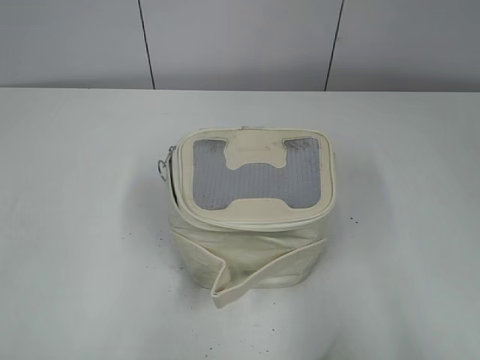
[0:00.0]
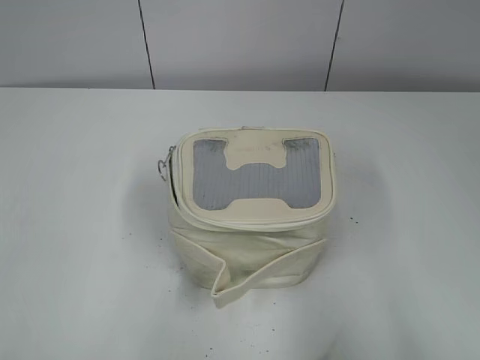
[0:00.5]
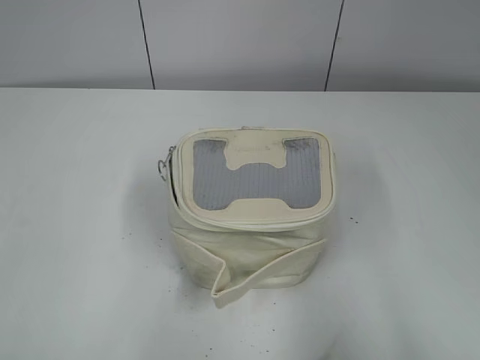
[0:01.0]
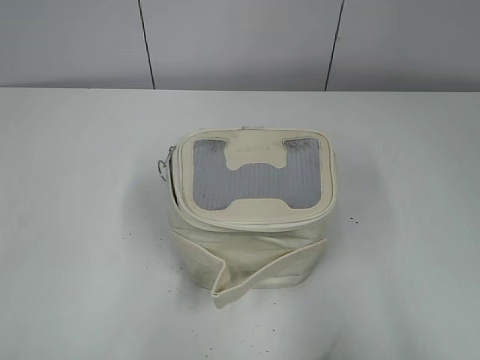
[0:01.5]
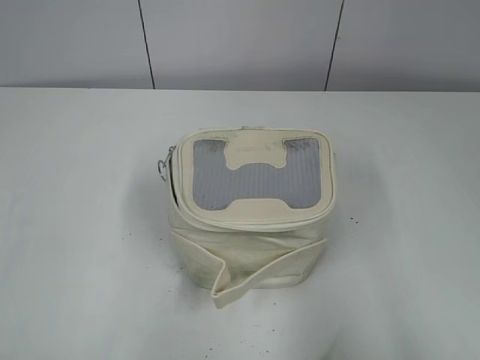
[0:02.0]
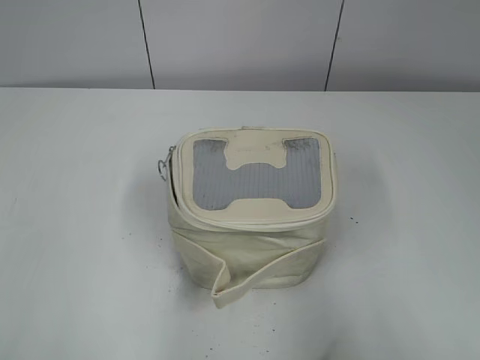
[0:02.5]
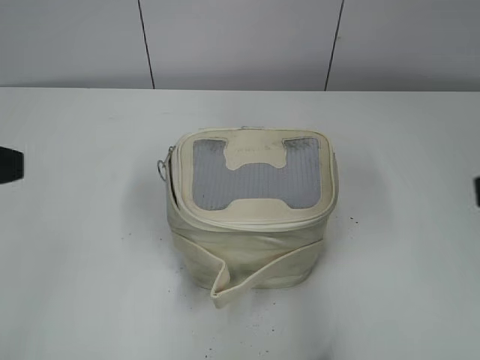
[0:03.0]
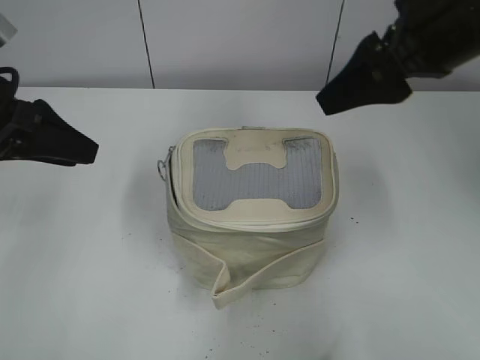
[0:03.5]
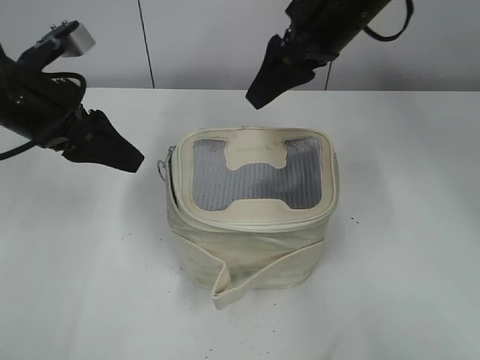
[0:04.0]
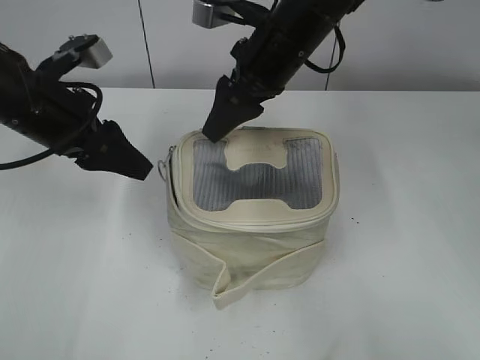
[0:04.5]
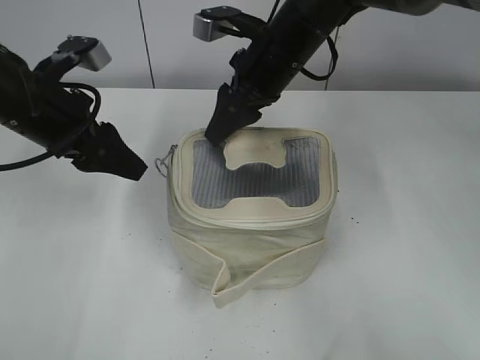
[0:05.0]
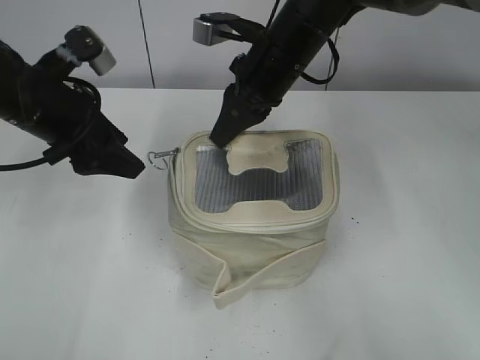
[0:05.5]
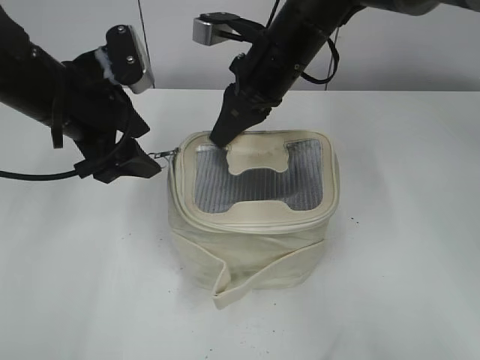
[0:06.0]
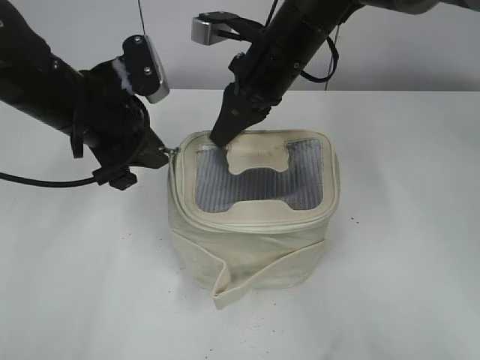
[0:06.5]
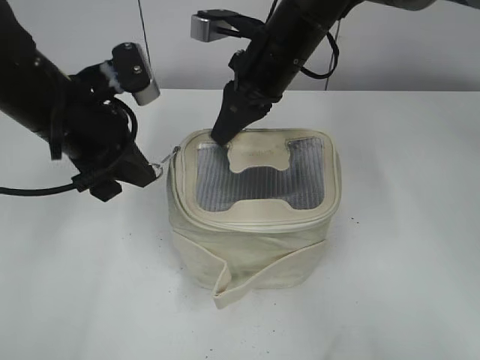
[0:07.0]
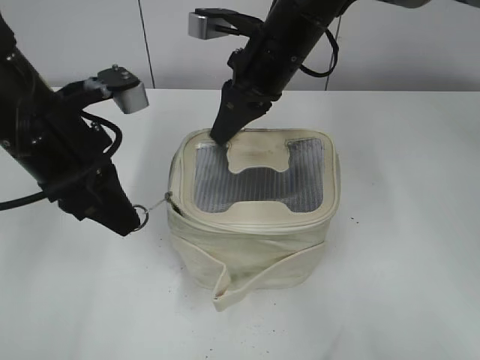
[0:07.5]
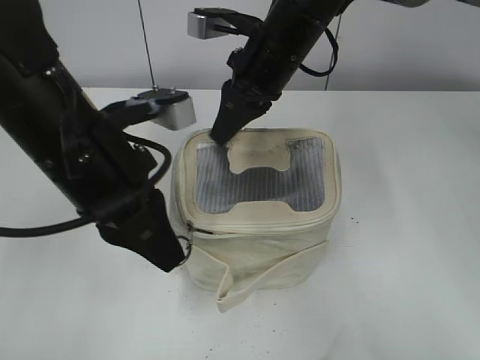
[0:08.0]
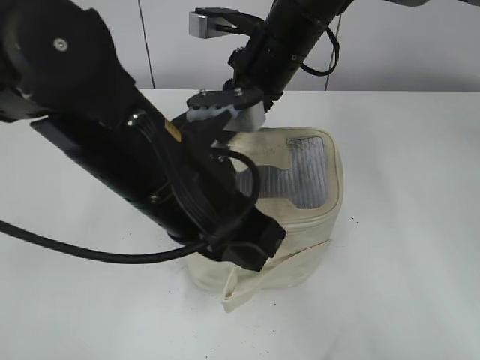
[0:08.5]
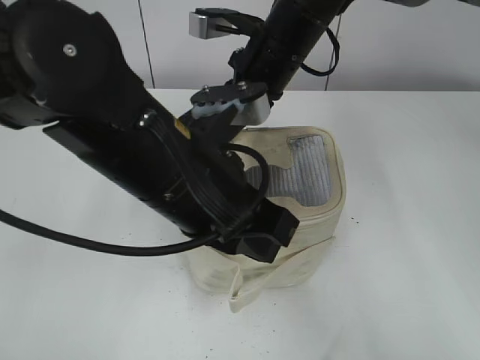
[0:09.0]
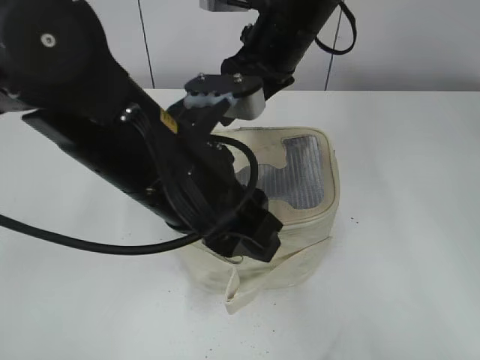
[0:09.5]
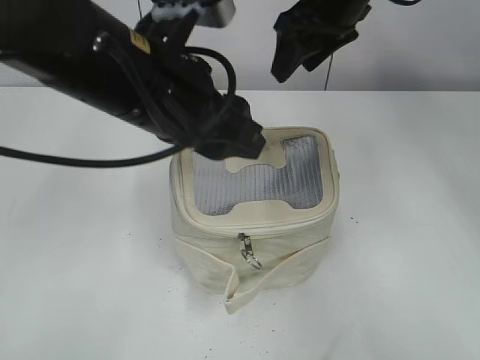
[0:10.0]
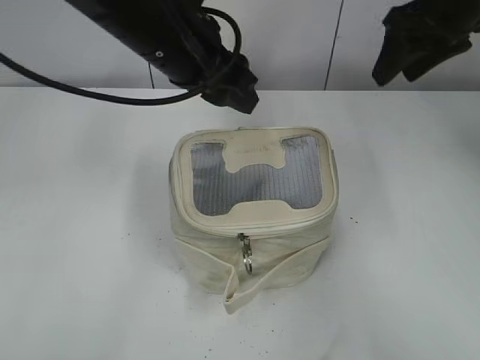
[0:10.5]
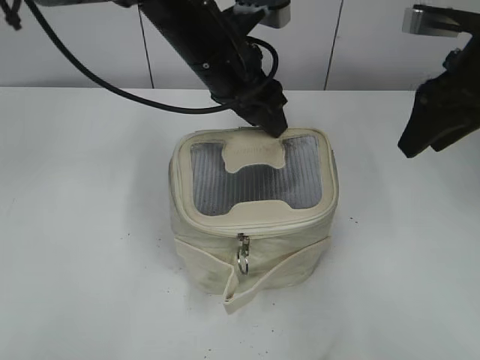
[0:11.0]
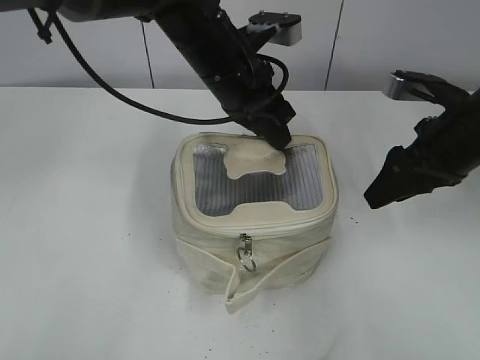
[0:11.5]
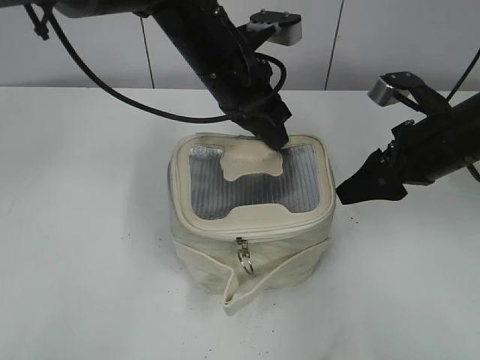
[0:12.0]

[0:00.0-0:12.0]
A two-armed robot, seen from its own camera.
Step, 0:00.0 to 0:09.0: Zip up the bag with your left hand.
0:02.0 to 0:04.0: The left gripper travels forward by roughly 30 cm; the right gripper shifts some 40 cm forward and to the left.
0:04.0 to 0:06.0: The right gripper is displaced downward and to the left by roughly 10 cm, and closes.
0:06.0 to 0:08.0: The left gripper is displaced backward by about 10 cm, and closes its fingers.
0:08.0 to 0:10.0: The right gripper shifts some 10 cm upward and to the right, and opens up. The left gripper goes some 5 cm to the right, and opens its fingers.
0:10.0 to 0:12.0: The left gripper shifts about 15 cm forward and to the right, and closes, while the right gripper moves to the right, downward and backward, approximately 20 cm.

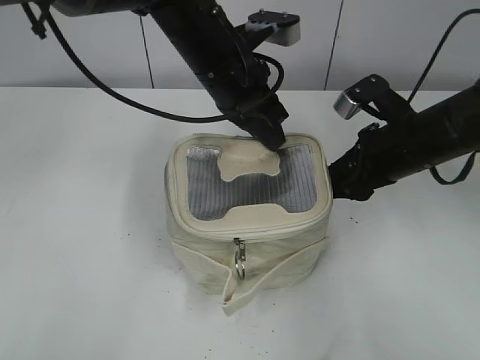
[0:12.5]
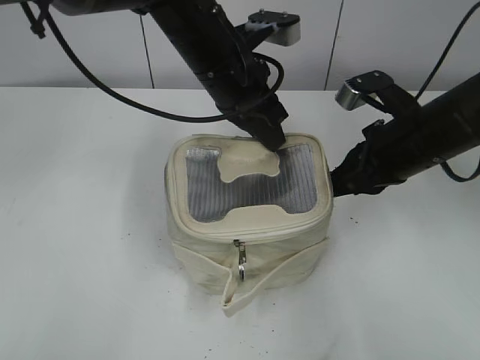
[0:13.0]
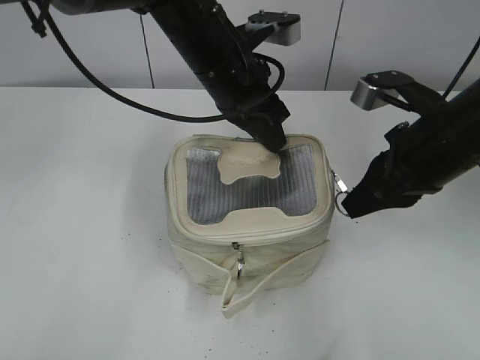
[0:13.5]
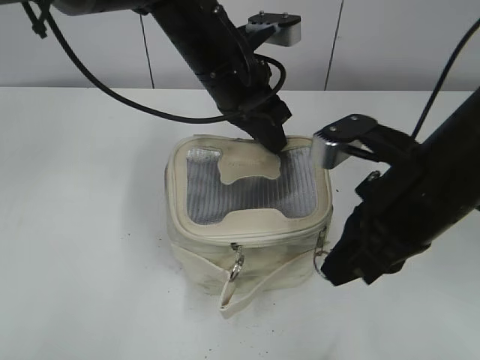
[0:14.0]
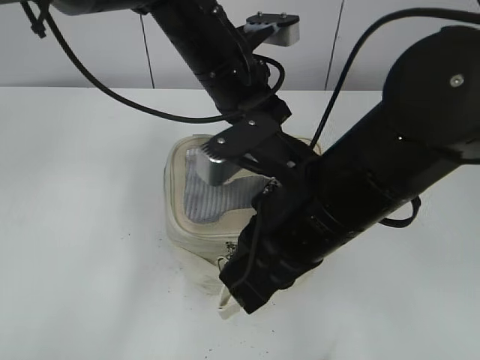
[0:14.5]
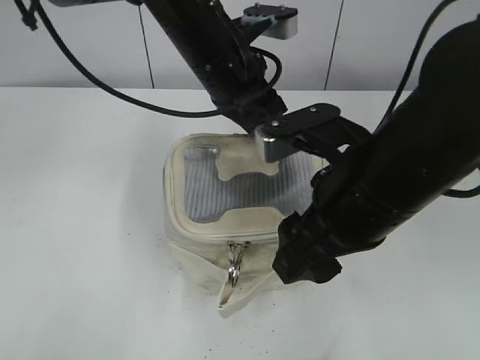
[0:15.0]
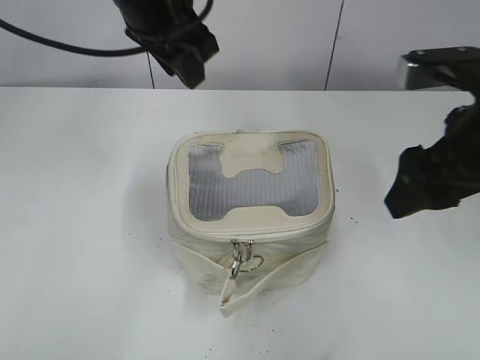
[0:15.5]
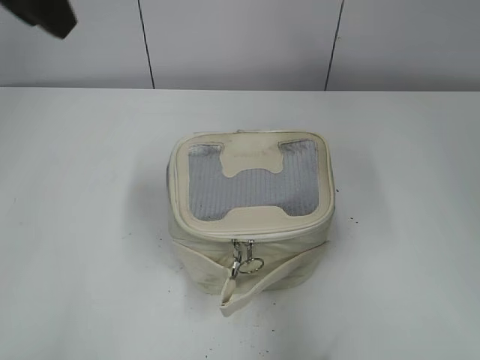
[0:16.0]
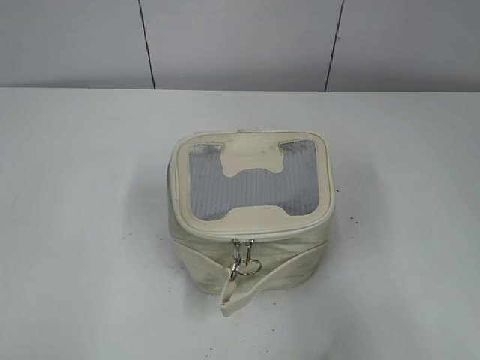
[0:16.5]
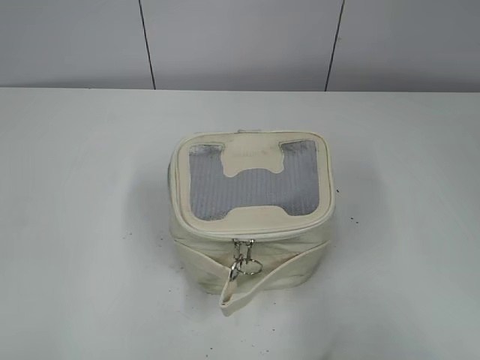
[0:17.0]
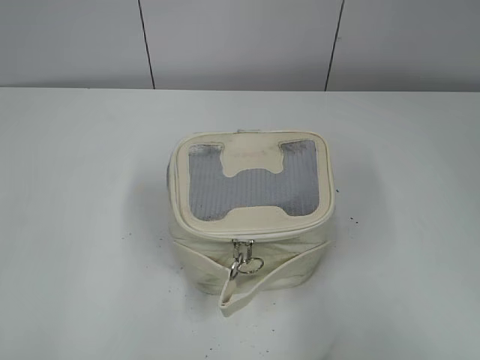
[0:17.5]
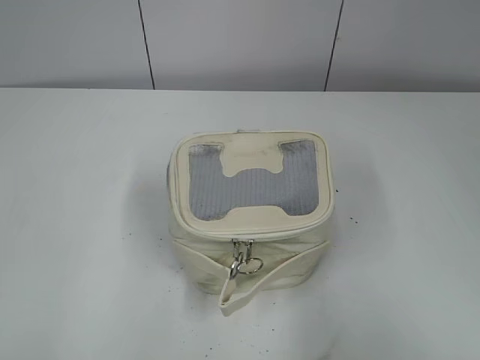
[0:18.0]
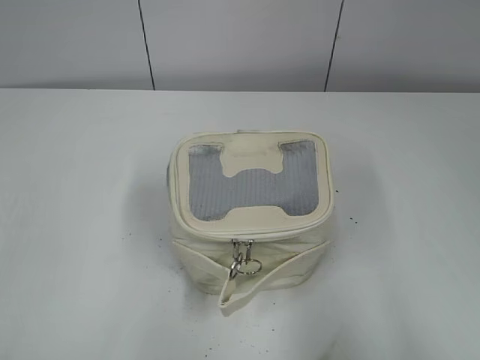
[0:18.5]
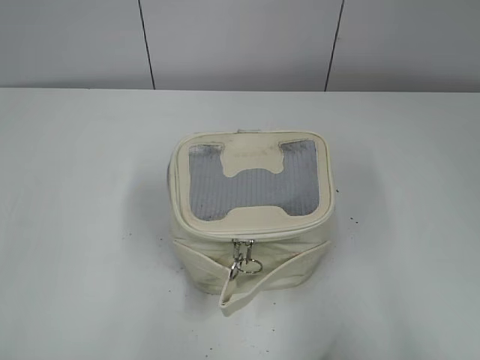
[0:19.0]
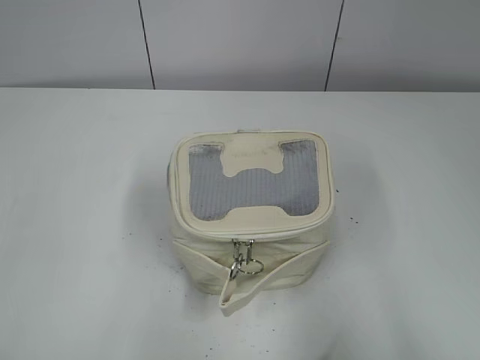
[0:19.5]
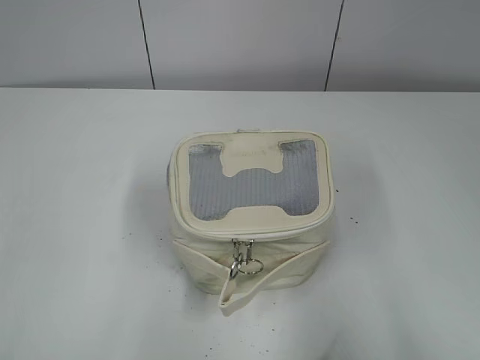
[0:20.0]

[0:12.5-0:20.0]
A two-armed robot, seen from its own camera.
Step, 0:12.5 to 0:14.5: Zip up the bag with your right hand.
0:12.5 to 0:14.5: The right gripper travels to the left, backward and upward by some 20 cm, and closes.
0:14.5 to 0:16.5: The right gripper shifts approximately 25 cm to the right and backward, and opens up. Meanwhile the left gripper heads to the left, backward and upward, covering roughly 40 cm, and opens its fingers.

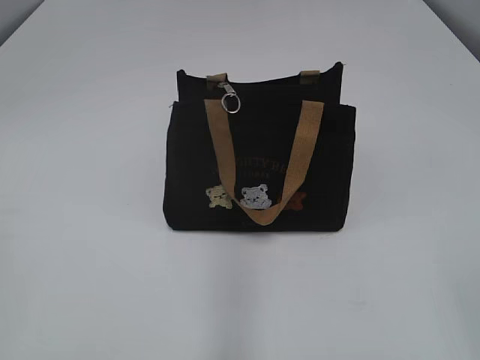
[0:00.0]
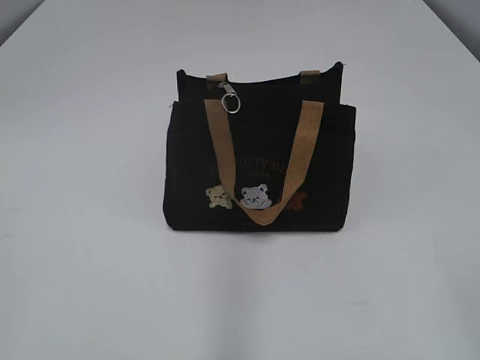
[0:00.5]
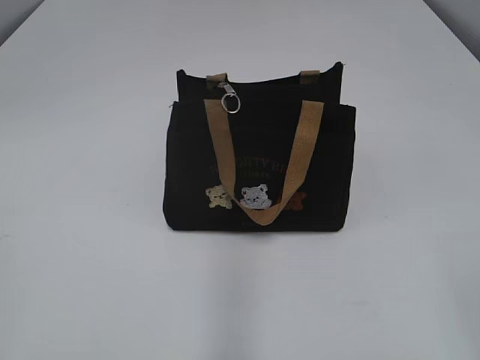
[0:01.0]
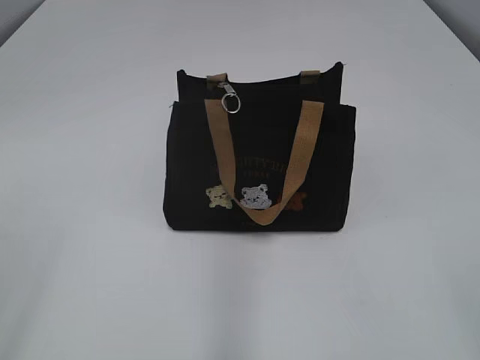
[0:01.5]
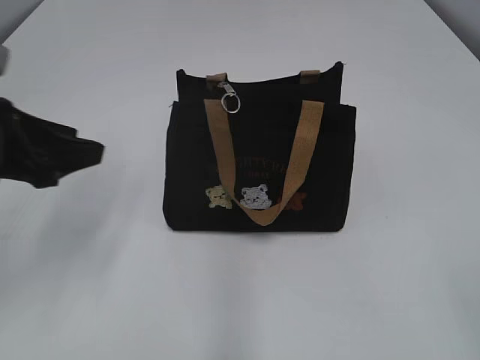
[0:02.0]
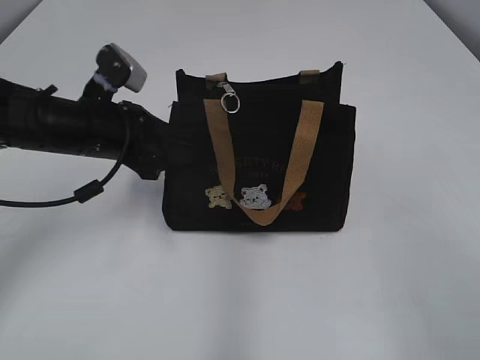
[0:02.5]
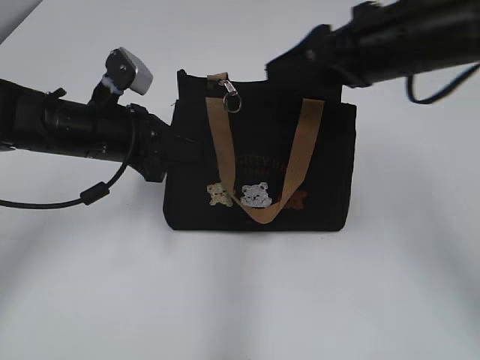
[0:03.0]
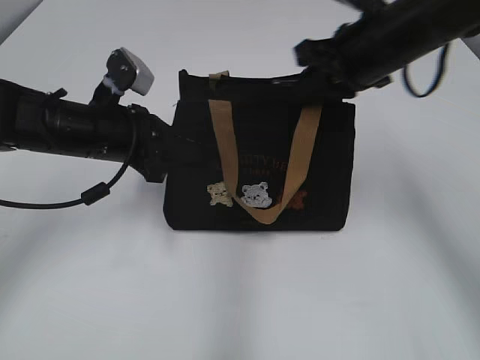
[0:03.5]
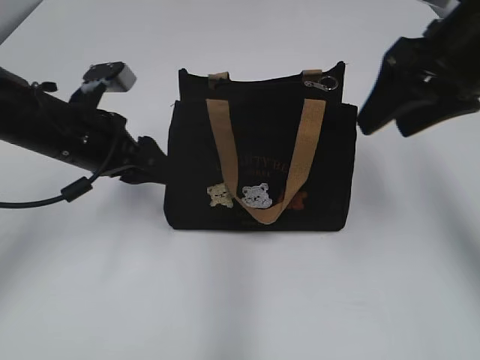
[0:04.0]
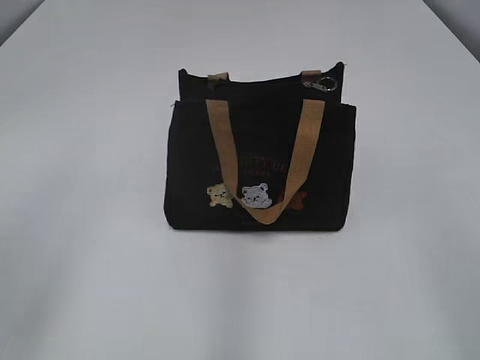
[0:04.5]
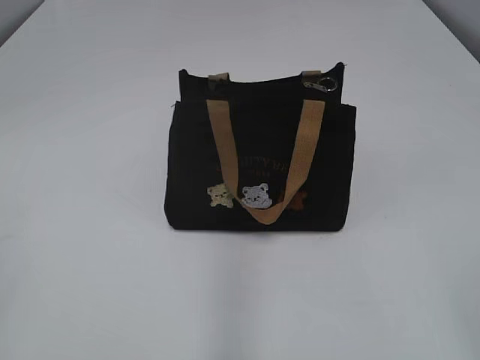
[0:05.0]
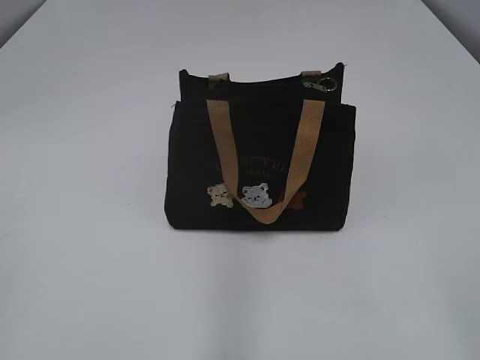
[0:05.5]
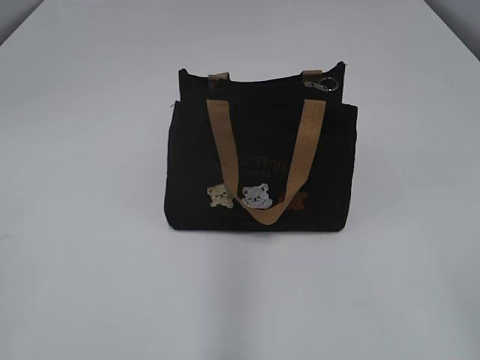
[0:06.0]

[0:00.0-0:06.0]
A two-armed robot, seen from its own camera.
Step, 0:00.0 to 0:03.5: Pull open the zipper with your right hand.
0:02.0 to 0:04.0: The right gripper goes about 35 cm forward, and closes, then reopens. Meanwhile the left gripper moves forward, to the right and downward, some 20 cm, and closes, then reopens.
0:04.0 to 0:06.0: The left gripper goes about 35 cm backward and to the left, and closes. The right gripper travels backward by approximately 35 cm.
